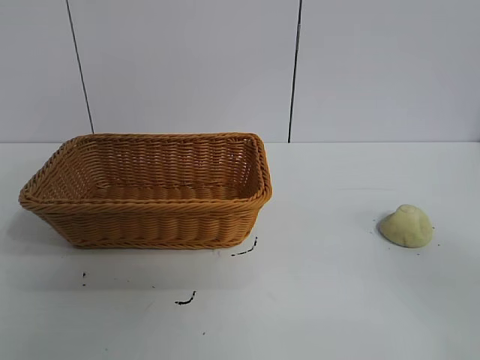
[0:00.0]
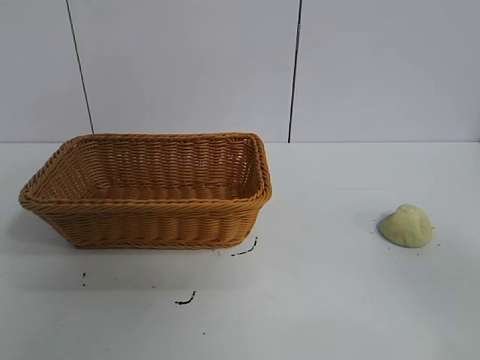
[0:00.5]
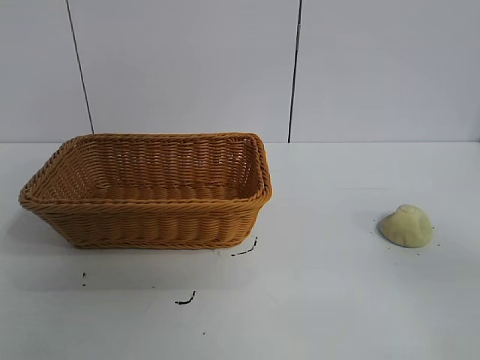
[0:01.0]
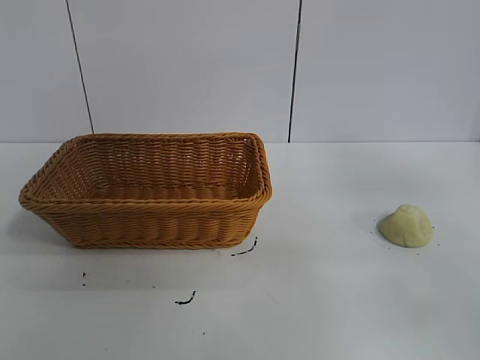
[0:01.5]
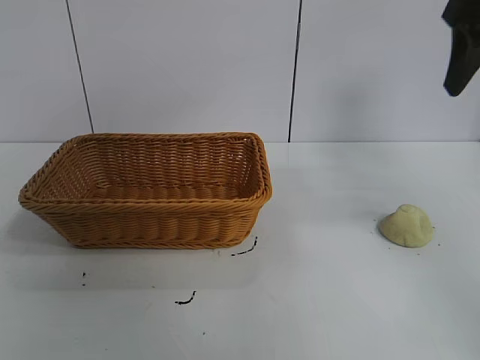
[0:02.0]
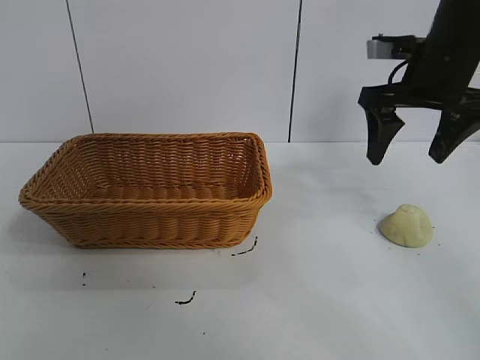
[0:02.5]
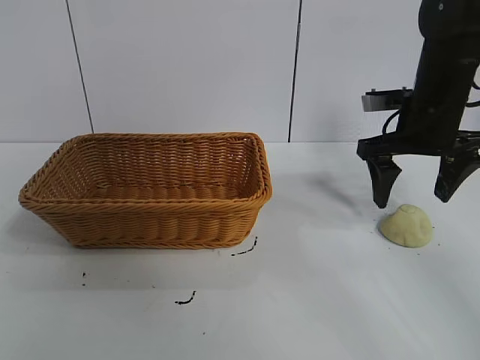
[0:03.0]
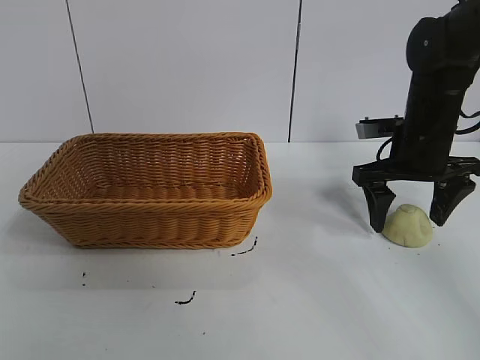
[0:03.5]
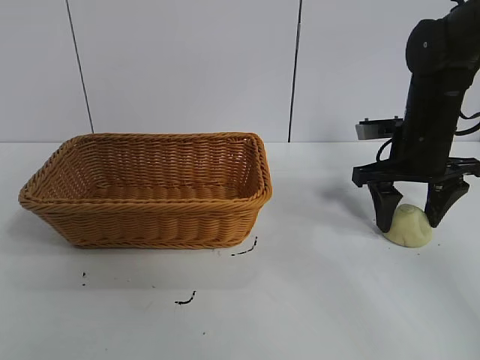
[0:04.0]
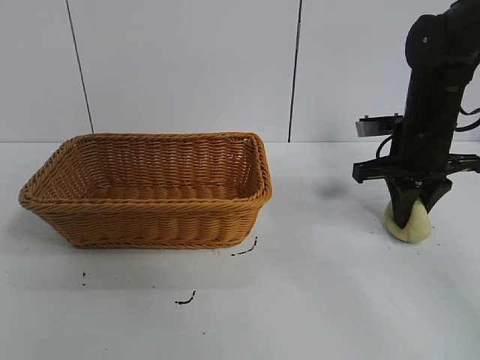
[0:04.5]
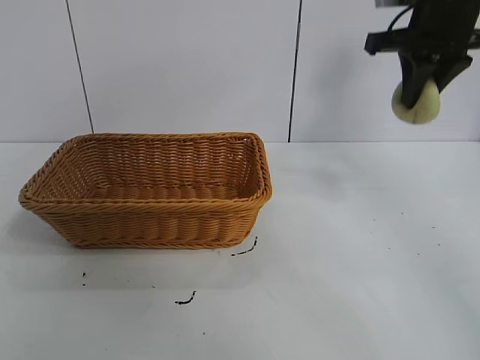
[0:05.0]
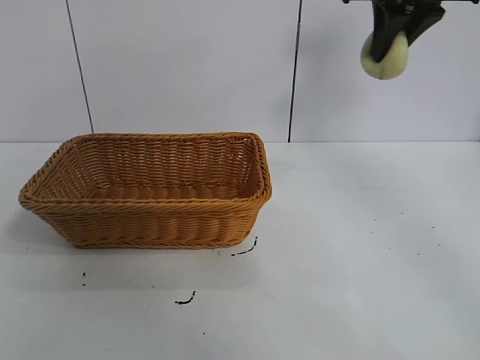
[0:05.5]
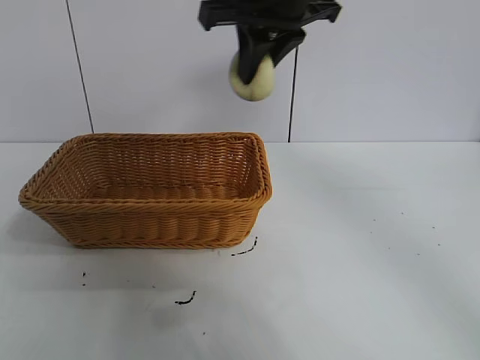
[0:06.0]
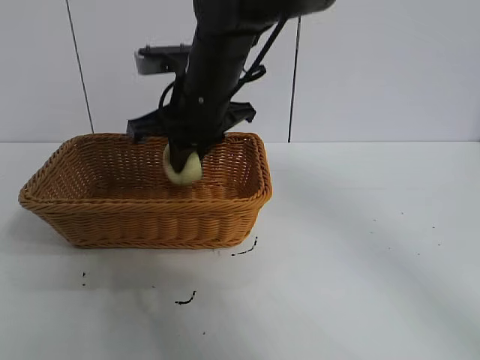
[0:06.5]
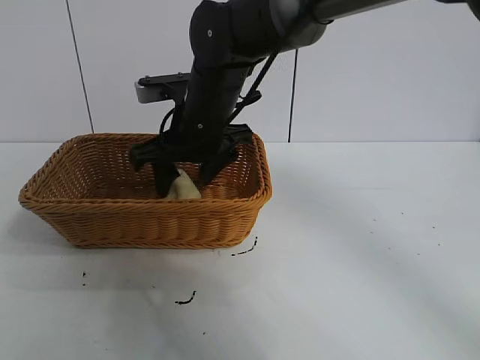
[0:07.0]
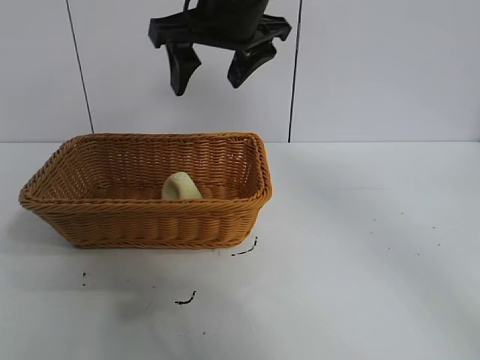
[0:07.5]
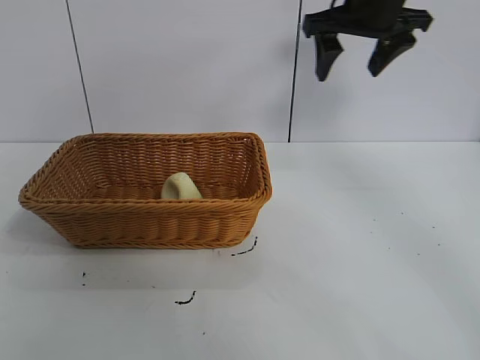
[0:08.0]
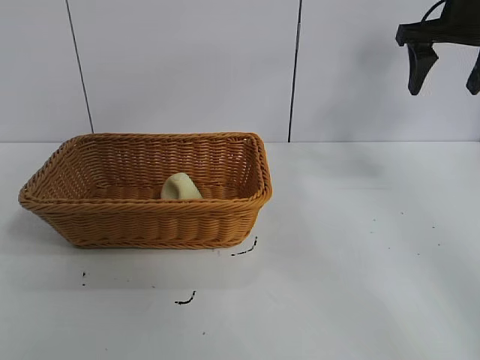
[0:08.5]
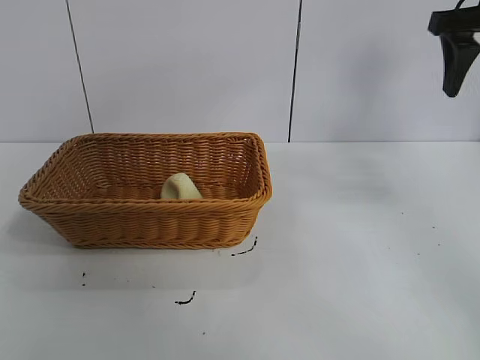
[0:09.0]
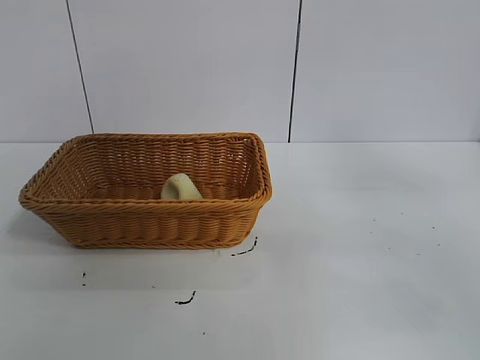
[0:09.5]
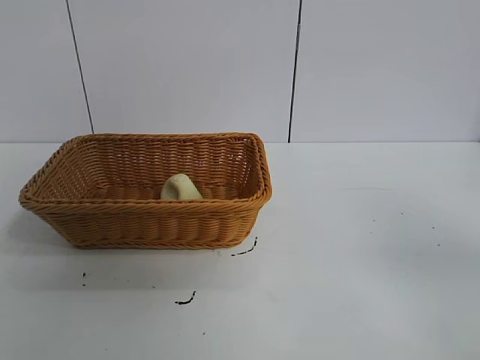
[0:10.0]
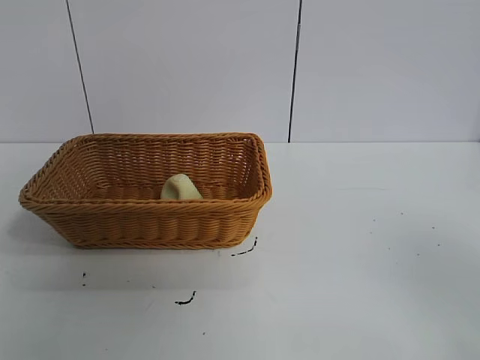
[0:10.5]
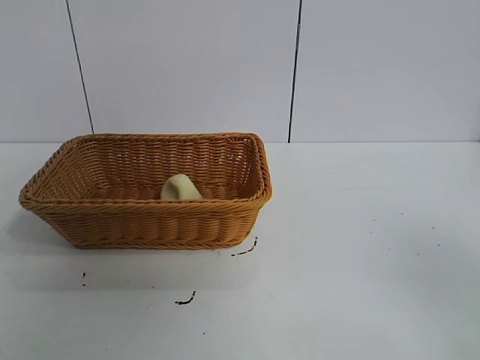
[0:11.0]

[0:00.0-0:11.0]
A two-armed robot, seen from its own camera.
Task of the whole recording: pick up the egg yolk pastry and put it into the basket.
Step, 0:01.0 to 0:04.0: Grasp egg yolk pastry with right gripper.
Step, 0:04.5 to 0:07.0: Place the egg yolk pastry in the basket with right gripper.
